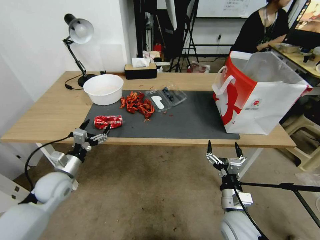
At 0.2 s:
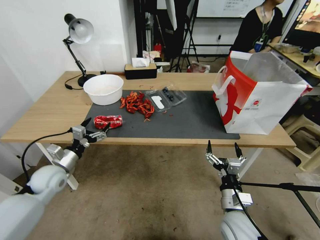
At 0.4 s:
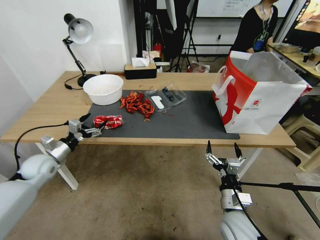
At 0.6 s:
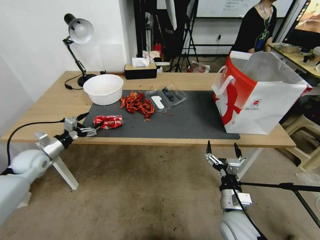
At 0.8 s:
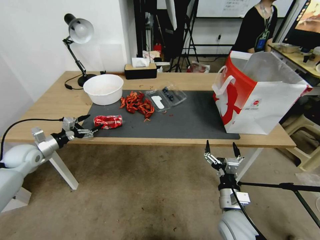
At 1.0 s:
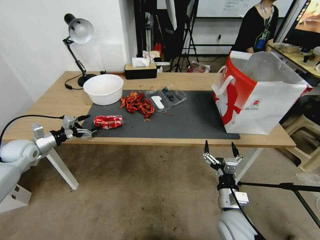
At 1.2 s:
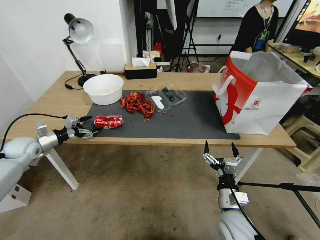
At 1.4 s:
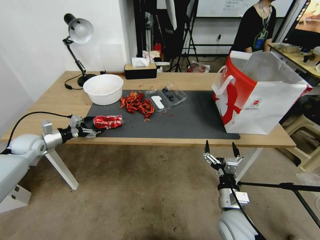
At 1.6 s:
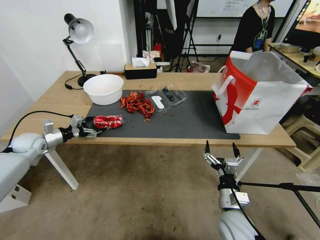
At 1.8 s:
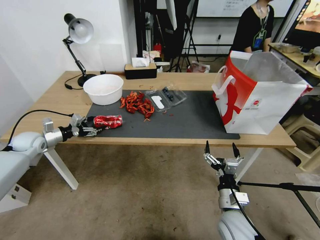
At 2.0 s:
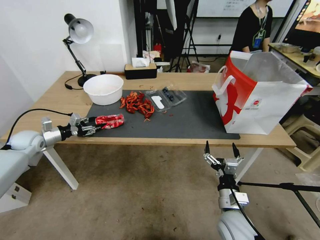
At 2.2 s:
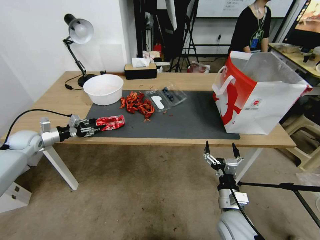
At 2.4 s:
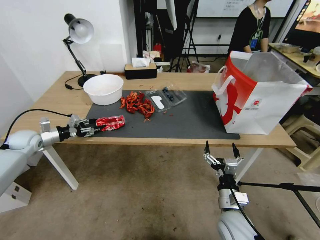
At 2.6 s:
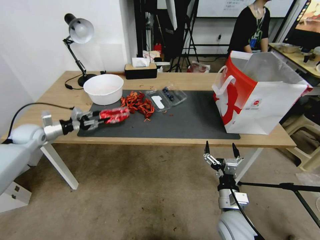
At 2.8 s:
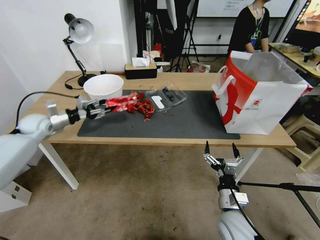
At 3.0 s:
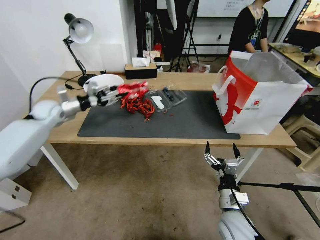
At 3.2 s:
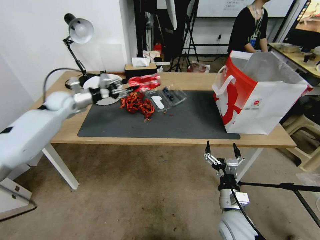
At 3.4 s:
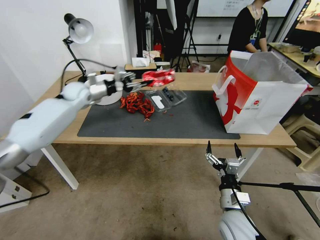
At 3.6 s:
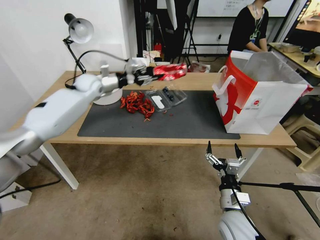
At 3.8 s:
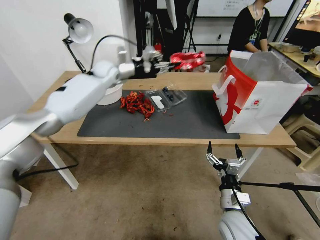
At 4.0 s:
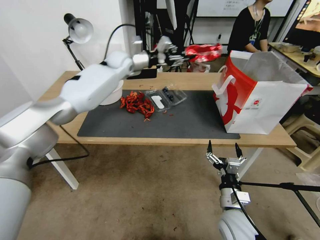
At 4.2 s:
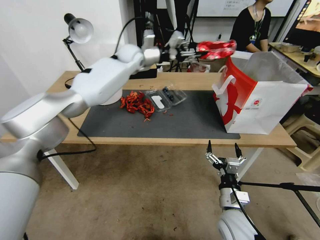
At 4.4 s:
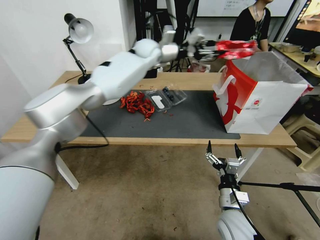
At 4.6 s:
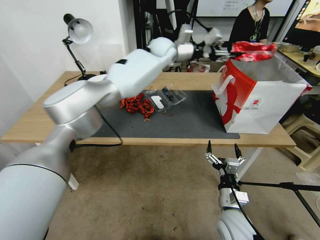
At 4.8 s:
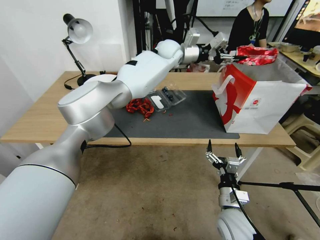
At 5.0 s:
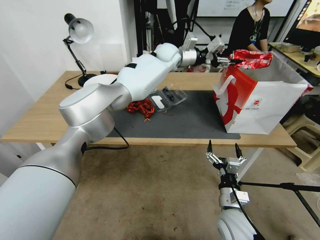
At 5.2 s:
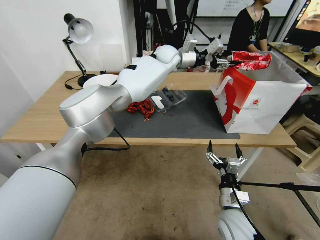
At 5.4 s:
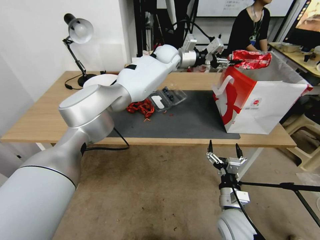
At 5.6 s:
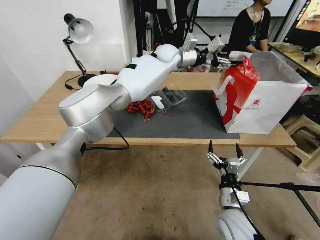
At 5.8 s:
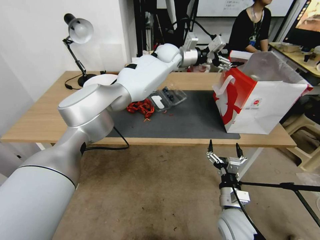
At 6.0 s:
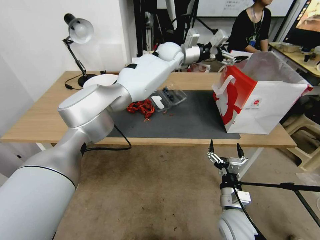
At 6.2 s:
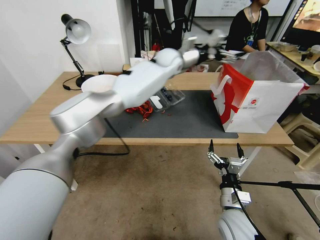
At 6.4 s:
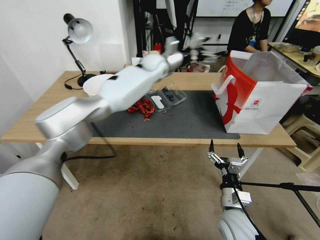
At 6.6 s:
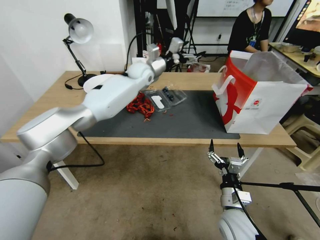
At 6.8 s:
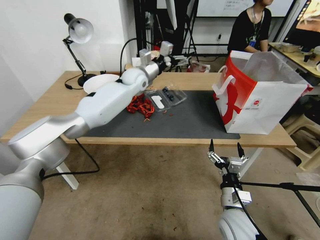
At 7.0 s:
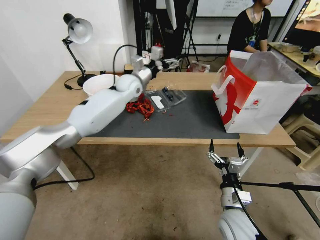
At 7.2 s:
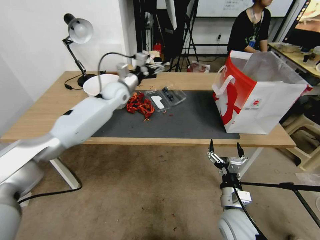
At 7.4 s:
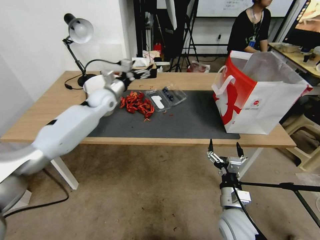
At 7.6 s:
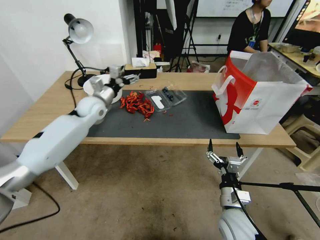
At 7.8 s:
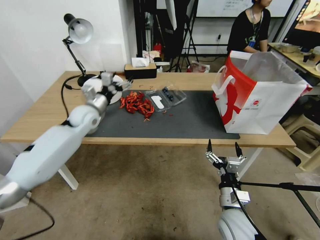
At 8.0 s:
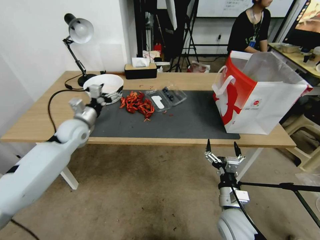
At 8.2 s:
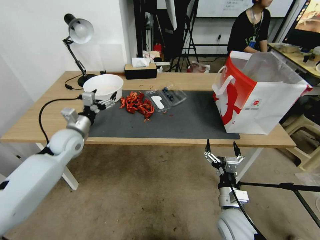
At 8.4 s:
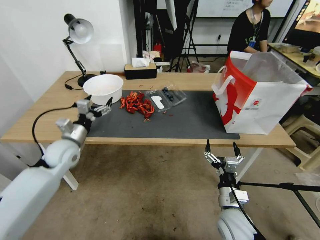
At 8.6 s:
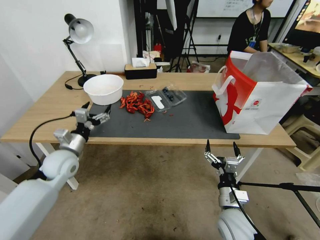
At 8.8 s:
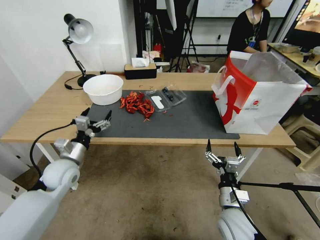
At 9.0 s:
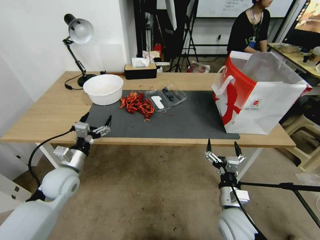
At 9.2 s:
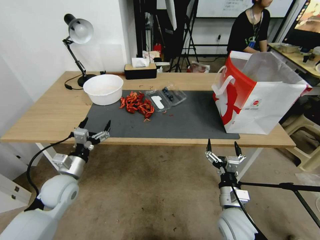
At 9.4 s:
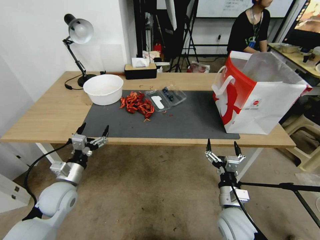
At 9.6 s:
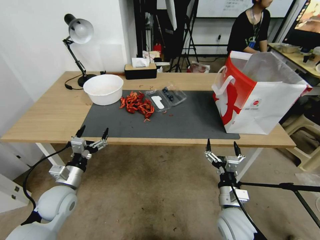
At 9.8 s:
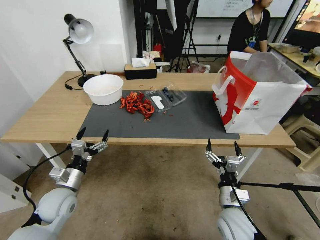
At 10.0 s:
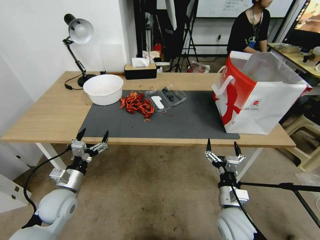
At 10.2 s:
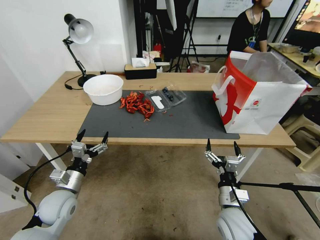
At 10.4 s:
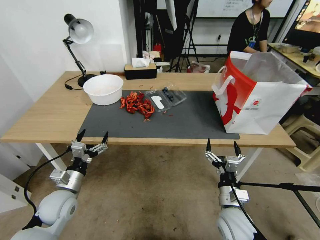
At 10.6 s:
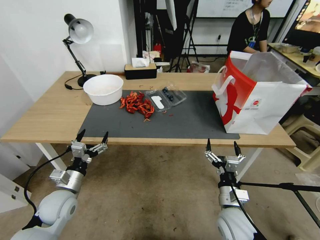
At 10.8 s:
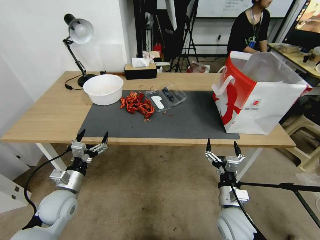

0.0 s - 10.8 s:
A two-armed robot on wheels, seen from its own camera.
0.0 s - 1.6 s: The left gripper goes about 20 cm to the left and forward.
1.6 s - 3.0 s: The left gripper travels upward, to the right and forward by about 15 cm, and closes its fingers.
3.0 s - 4.6 s: The left gripper is displaced to the right by roughly 40 cm.
4.6 s - 6.2 s: The left gripper opens its fingers.
6.2 s - 7.8 s: The left gripper heads to the left, downward and backward, covering approximately 35 cm.
7.8 s - 9.2 s: The left gripper heads backward and downward, covering about 25 cm.
9.2 s - 10.8 s: The grippers make only small movements.
